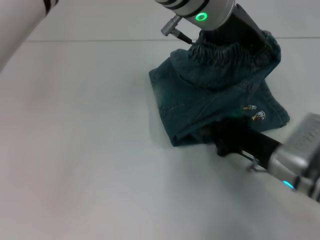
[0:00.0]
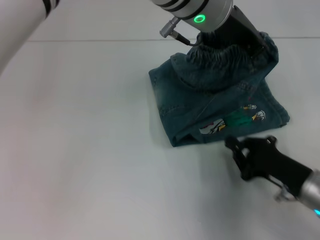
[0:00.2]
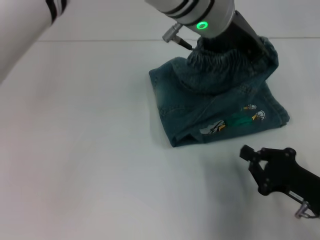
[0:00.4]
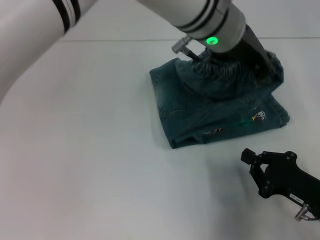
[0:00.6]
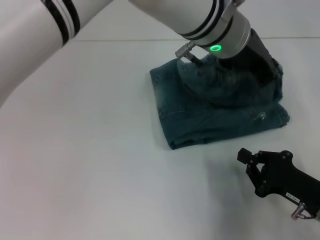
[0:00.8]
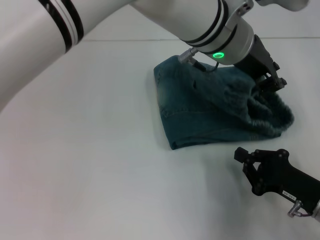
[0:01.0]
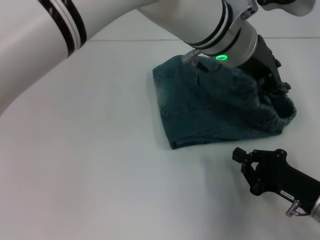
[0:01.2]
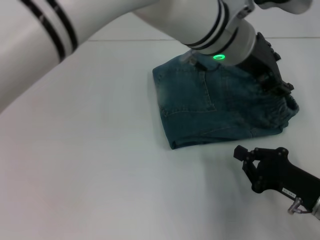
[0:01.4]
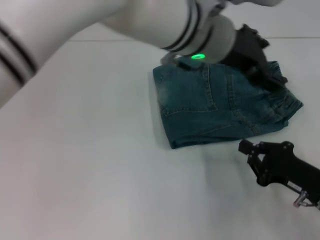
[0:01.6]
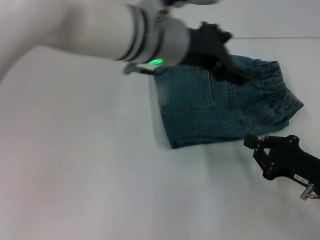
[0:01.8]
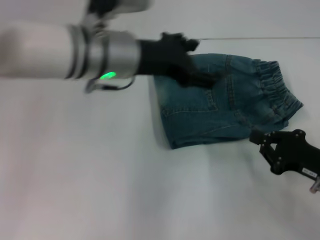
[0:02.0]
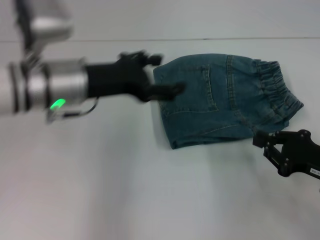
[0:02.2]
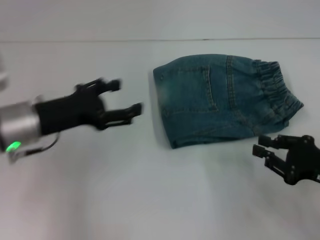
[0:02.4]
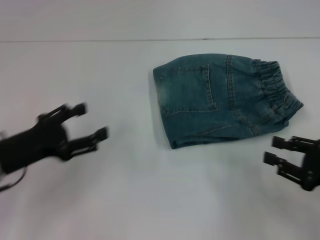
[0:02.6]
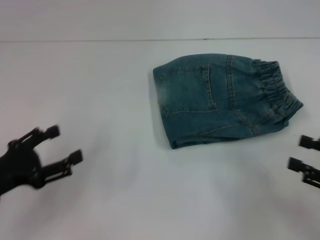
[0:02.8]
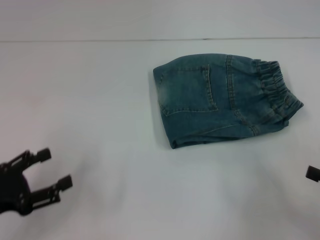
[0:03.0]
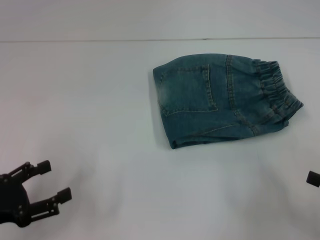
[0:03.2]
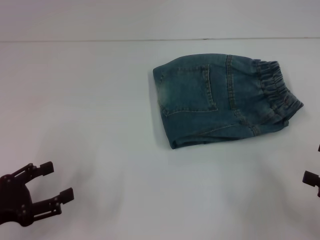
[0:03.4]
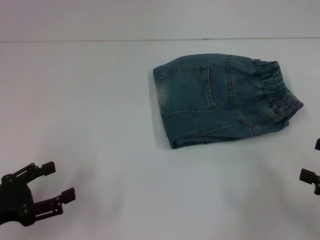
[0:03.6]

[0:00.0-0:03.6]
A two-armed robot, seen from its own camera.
Step, 0:00.2 to 0:01.2: Fold to the right with your left hand.
0:00.0 to 0:01.8: The right gripper travels to the right by about 5 cm; the left gripper moves to the left, roughly 5 cm, and opens.
0:01.8 to 0:03.6: The left gripper travels to the left, backward and downward by roughly 35 cm; the right gripper heads to the right and upward, covering approximately 10 cm, and opens.
